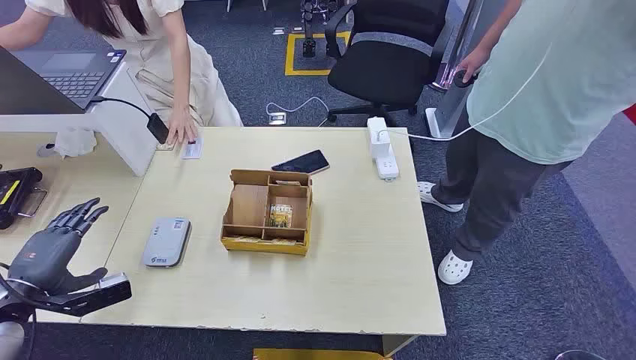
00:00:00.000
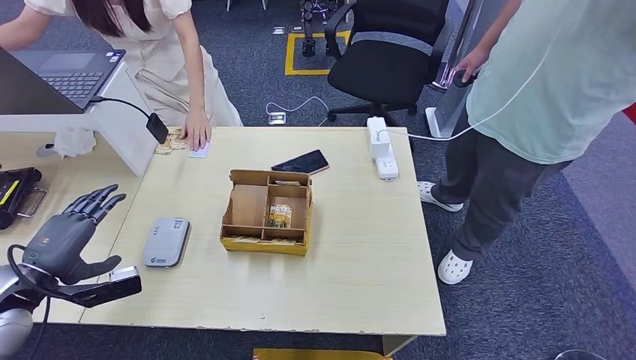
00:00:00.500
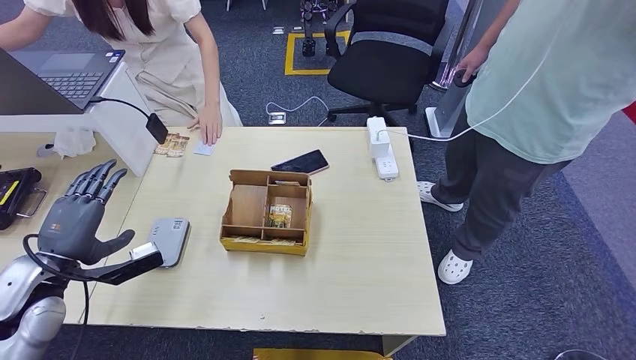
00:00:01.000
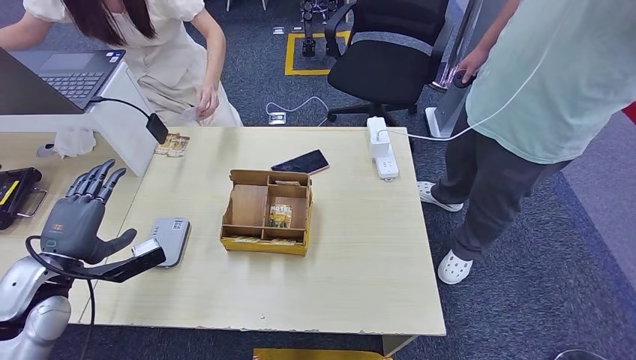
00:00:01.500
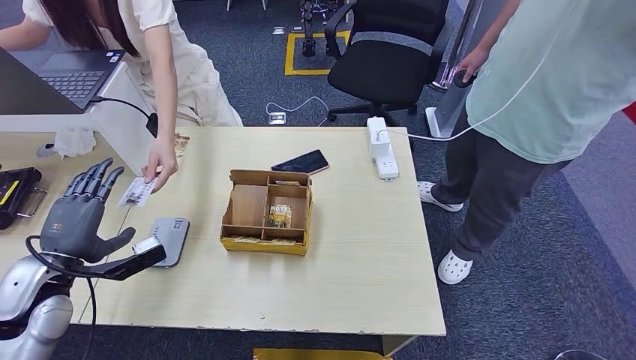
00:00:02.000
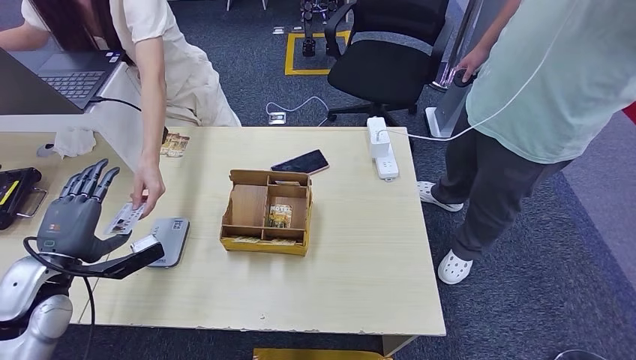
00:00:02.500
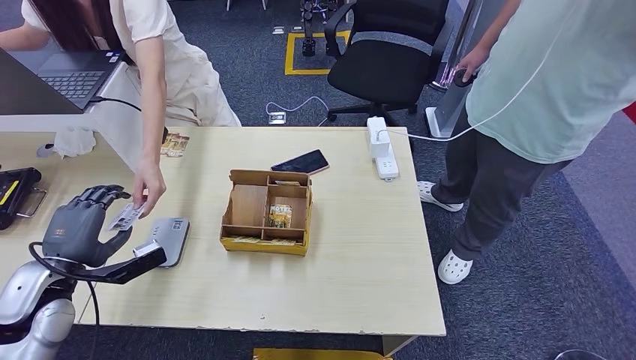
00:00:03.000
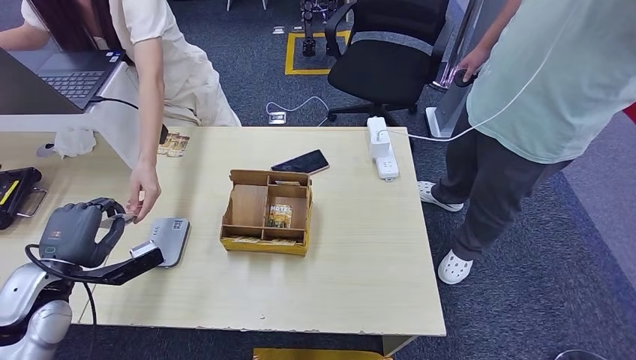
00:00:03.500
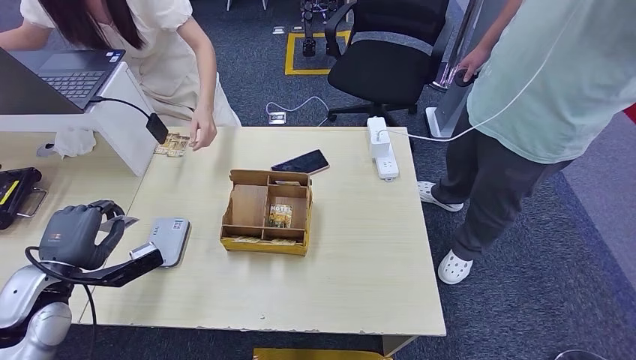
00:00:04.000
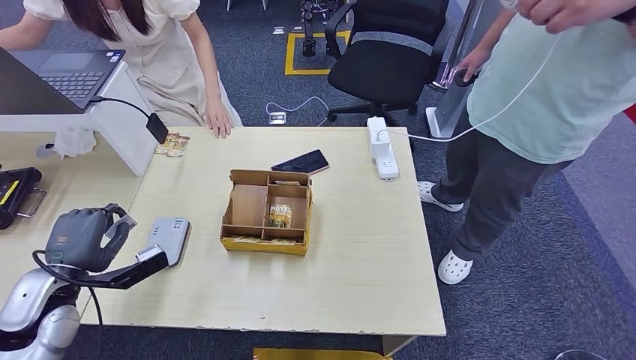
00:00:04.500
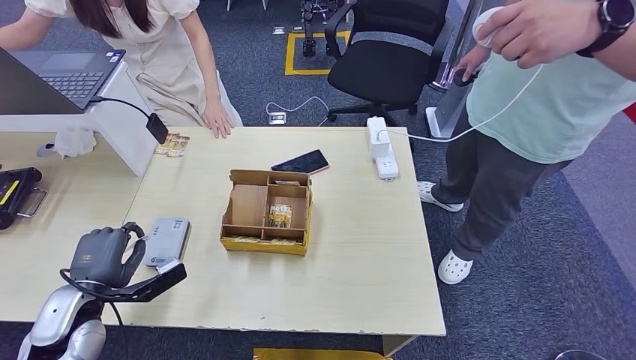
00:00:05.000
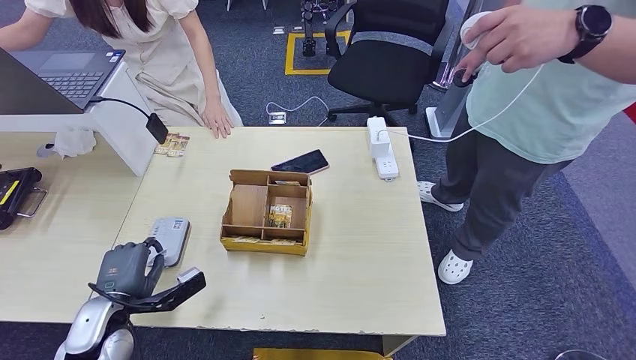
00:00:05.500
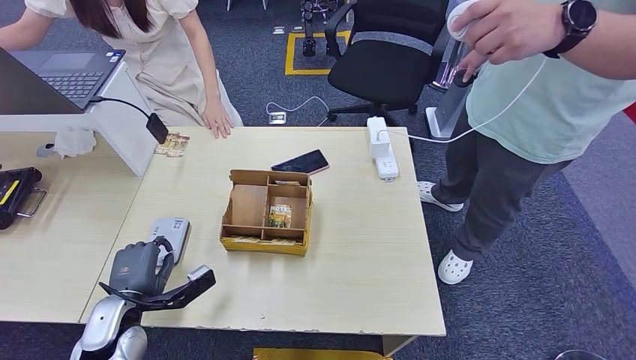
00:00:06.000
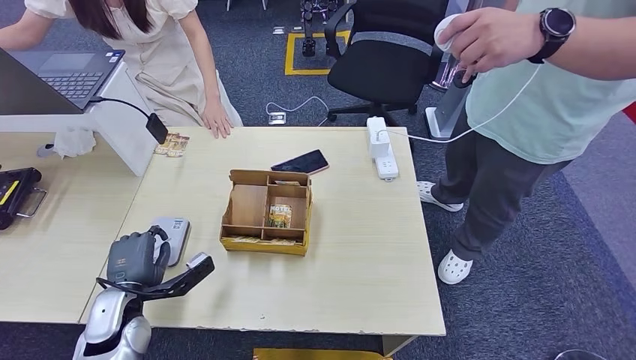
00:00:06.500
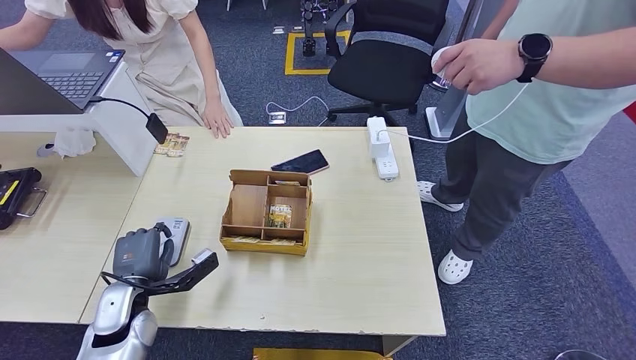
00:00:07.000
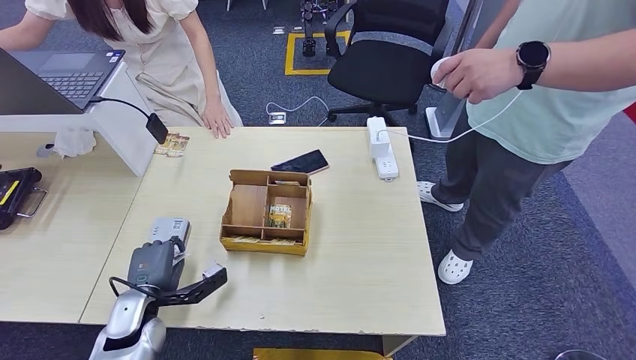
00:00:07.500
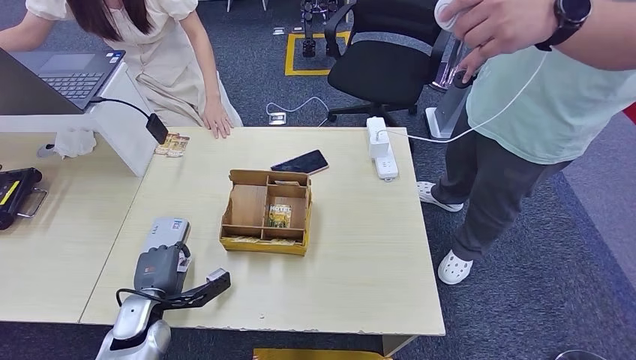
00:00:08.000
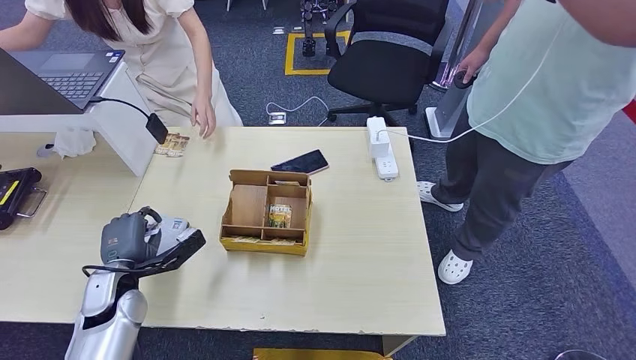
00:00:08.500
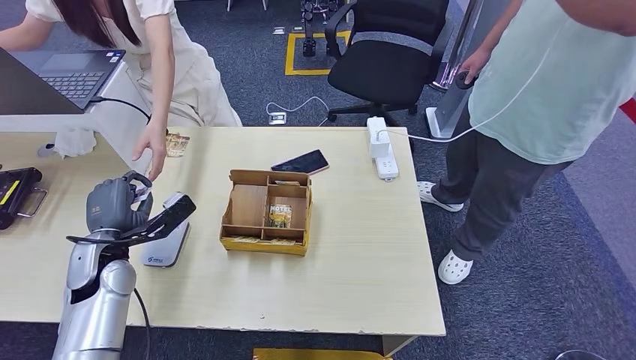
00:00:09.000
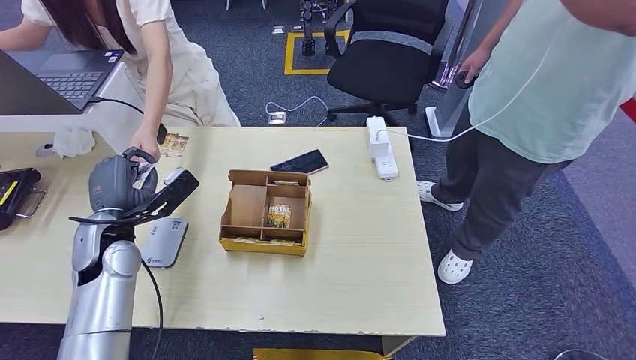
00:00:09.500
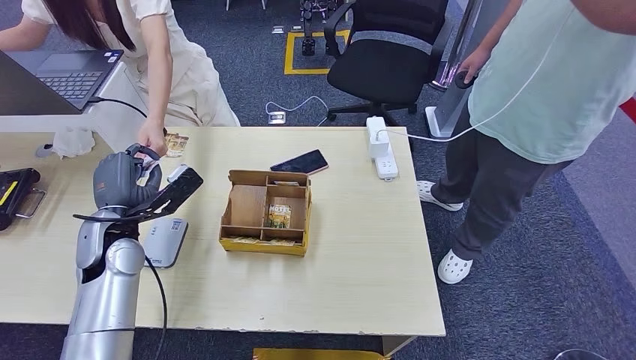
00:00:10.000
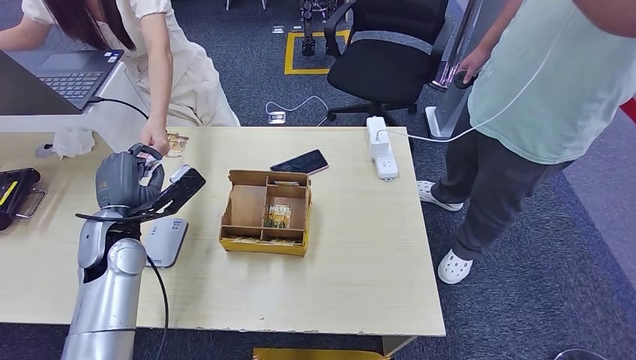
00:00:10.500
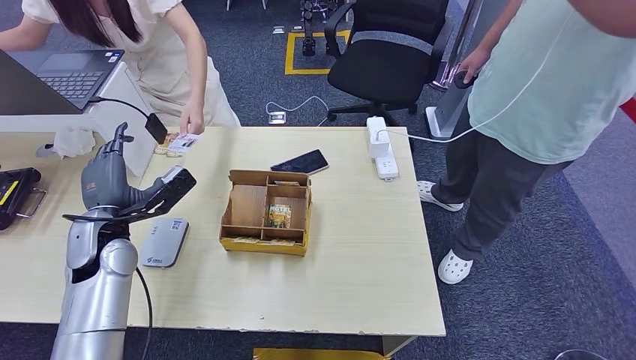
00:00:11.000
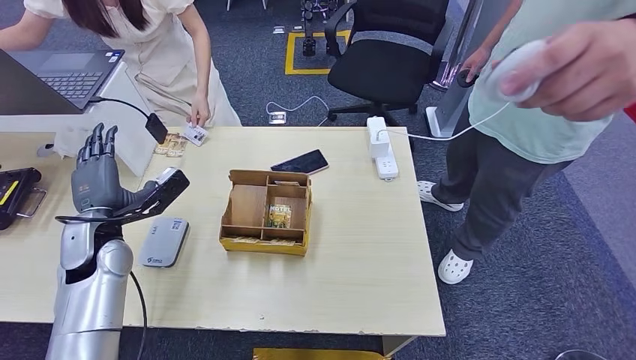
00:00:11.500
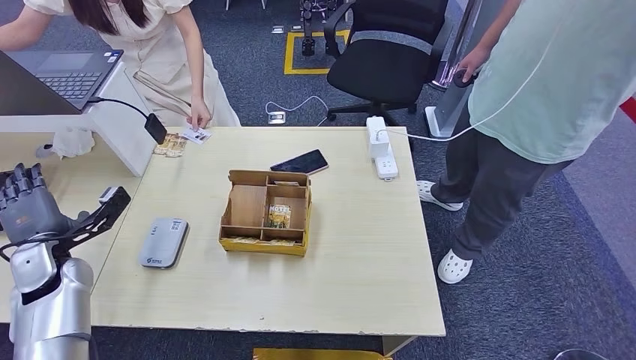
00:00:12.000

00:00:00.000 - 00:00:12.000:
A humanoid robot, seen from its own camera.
Step, 00:00:00.000 - 00:00:04.000: Take the ID card from the person's hand.
Step, 00:00:04.500 - 00:00:07.000: Place the ID card on the card reader.
Step, 00:00:07.500 - 00:00:10.000: Hand the ID card to the person.
00:00:02.000 - 00:00:04.000: The hands stay close to where they were, moving slightly.
00:00:04.000 - 00:00:06.000: The left hand moves downward and to the right, approximately 10 cm.
00:00:06.000 - 00:00:08.000: The hands make only small movements.
00:00:08.000 - 00:00:10.000: The left hand goes roughly 20 cm upward and forward.
00:00:10.000 - 00:00:12.000: The left hand goes roughly 10 cm to the left.

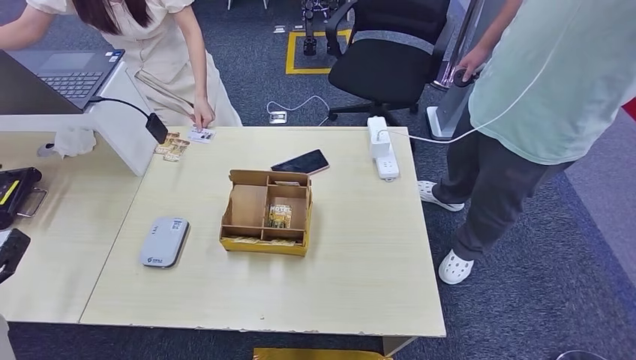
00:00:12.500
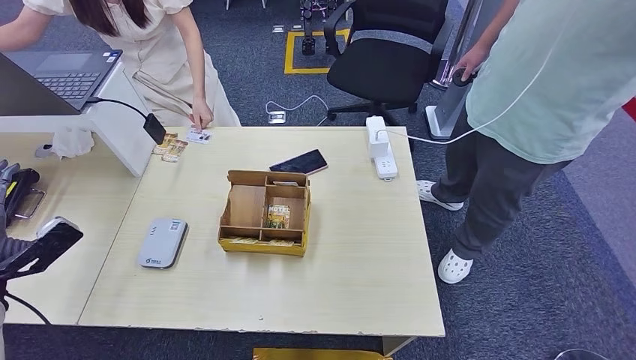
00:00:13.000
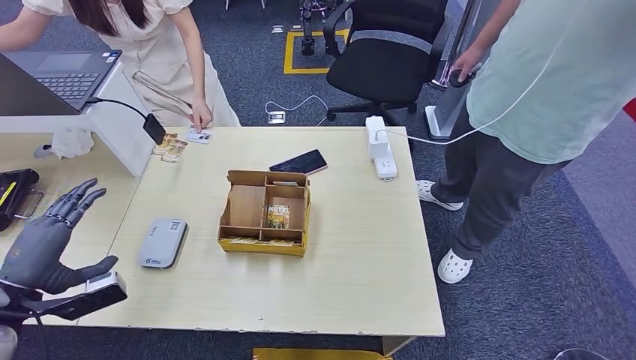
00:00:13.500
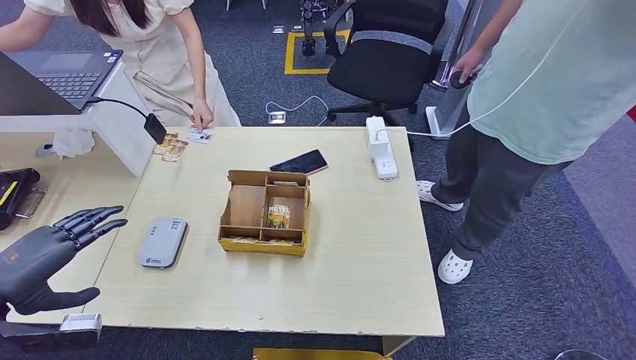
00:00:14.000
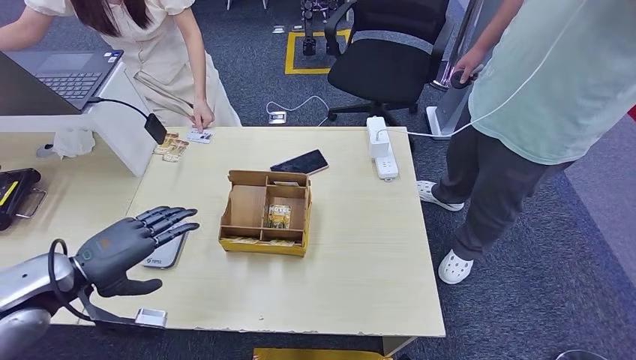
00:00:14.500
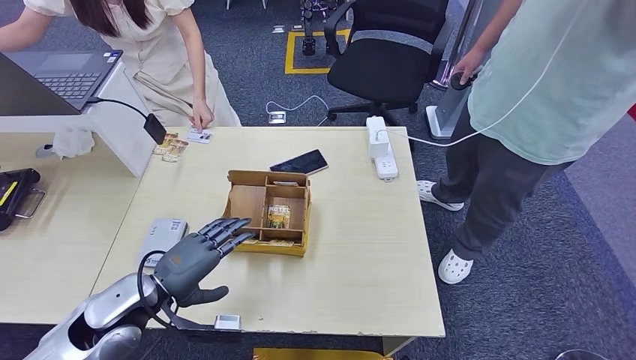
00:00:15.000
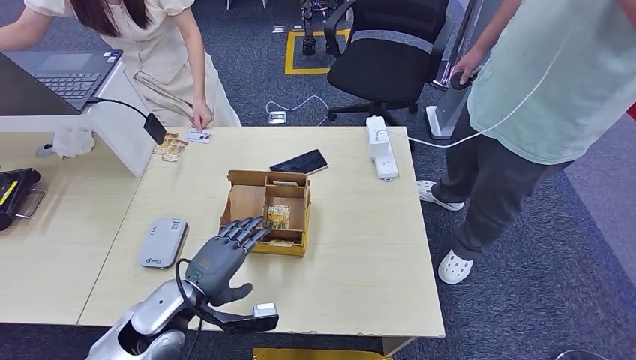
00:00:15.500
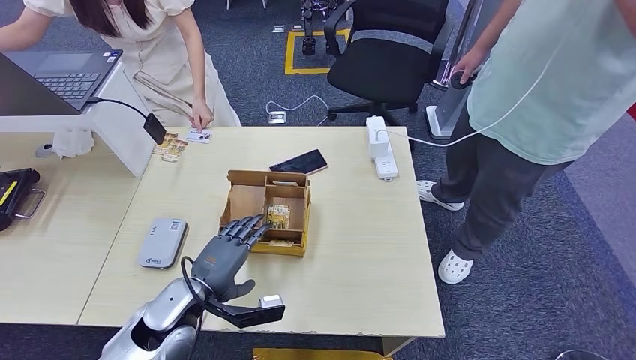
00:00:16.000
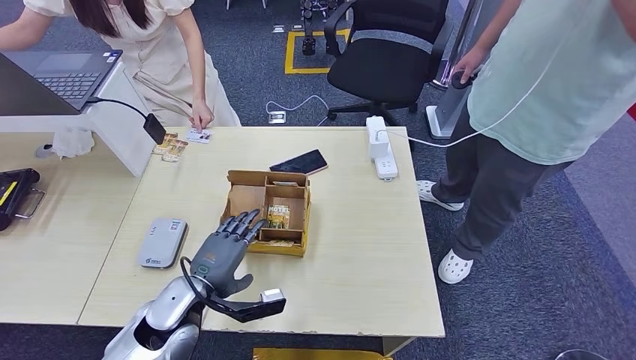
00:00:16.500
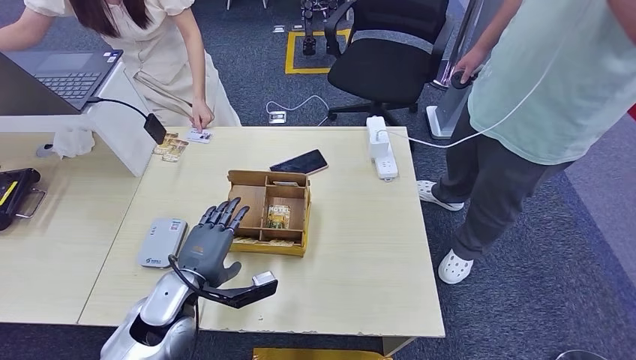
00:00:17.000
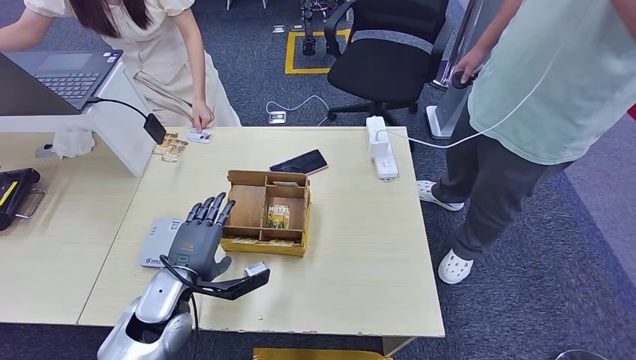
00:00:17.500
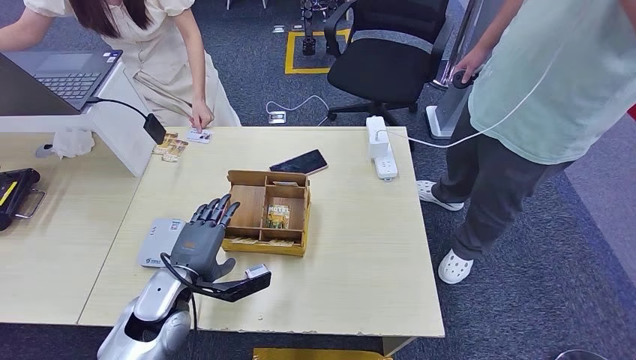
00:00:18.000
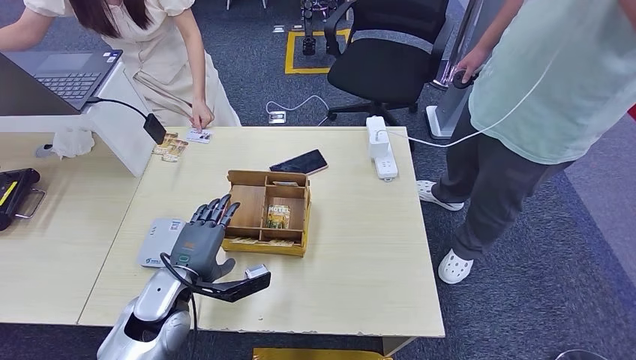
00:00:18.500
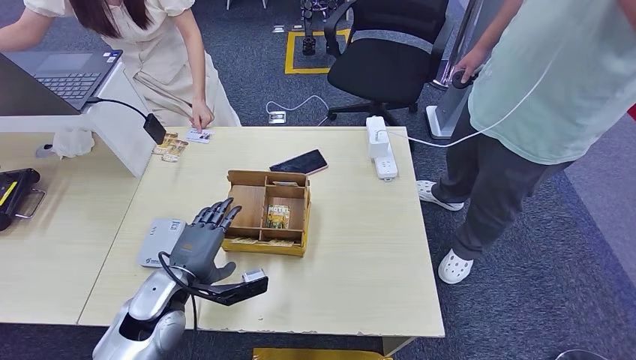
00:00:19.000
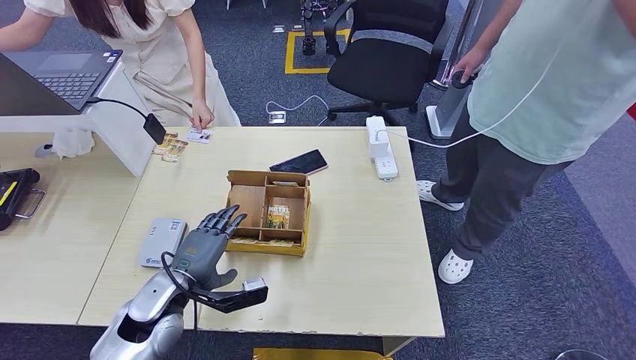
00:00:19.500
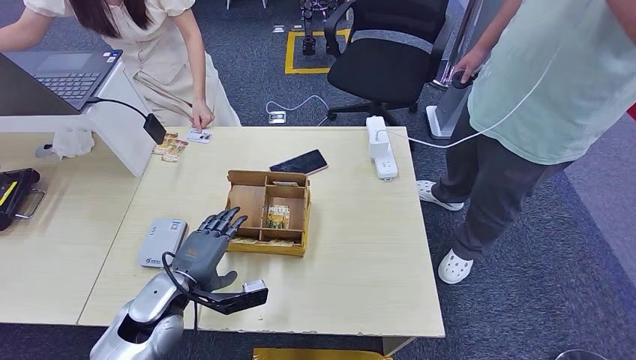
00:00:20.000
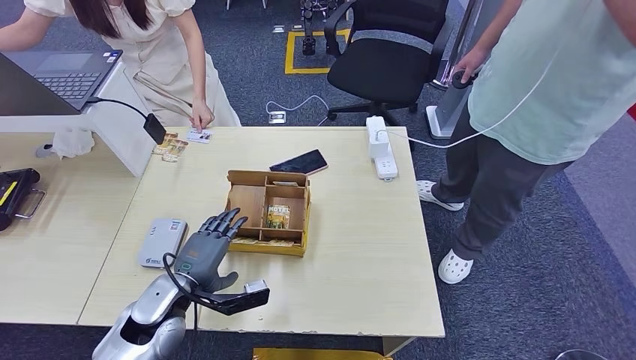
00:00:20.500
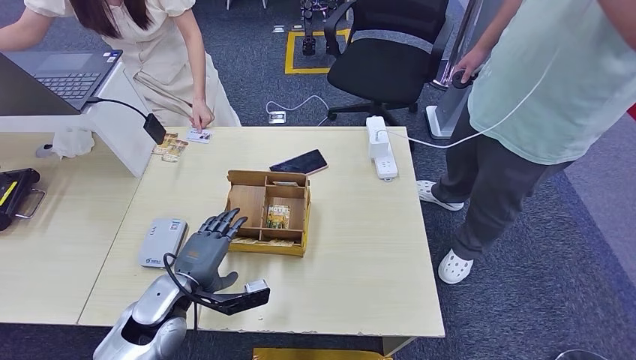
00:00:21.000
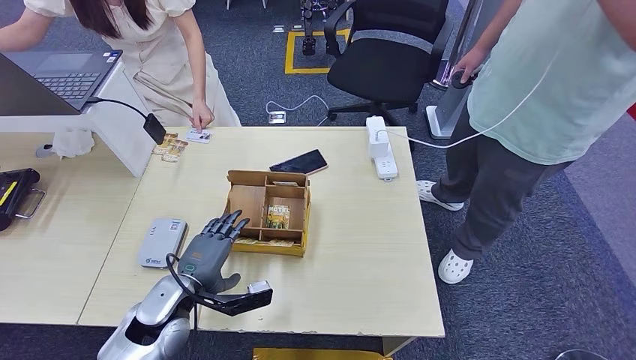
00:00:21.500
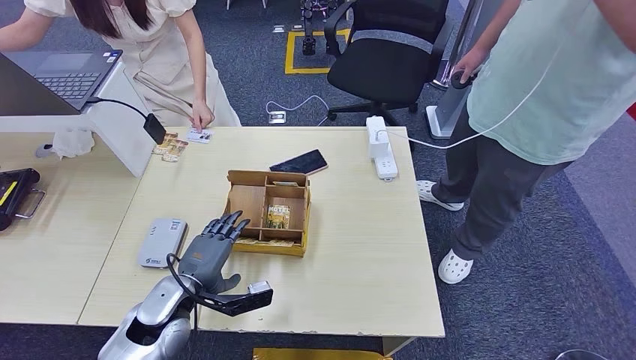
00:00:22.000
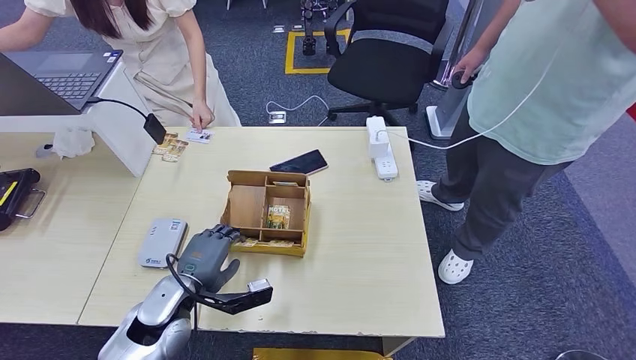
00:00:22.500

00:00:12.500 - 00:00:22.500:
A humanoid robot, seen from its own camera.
00:00:12.500 - 00:00:14.500: The left hand is displaced to the right and upward by some 20 cm.
00:00:14.500 - 00:00:16.500: The left hand travels to the right and downward by approximately 25 cm.
00:00:16.500 - 00:00:20.500: The hands stay close to where they were, moving slightly.
00:00:20.500 - 00:00:22.500: Neither hand changes place.
